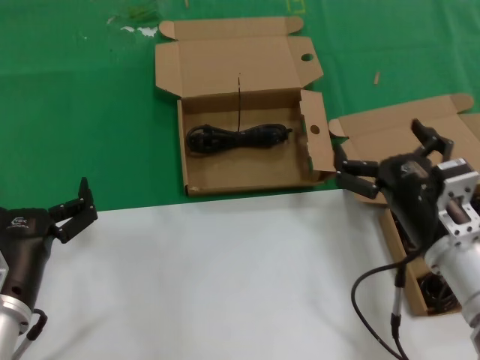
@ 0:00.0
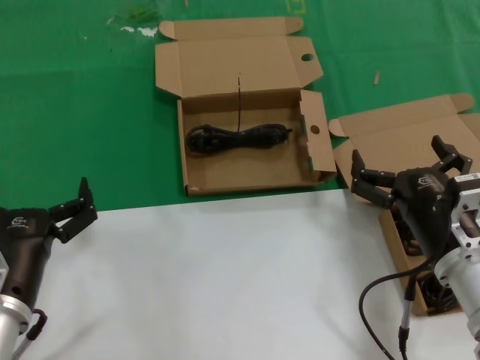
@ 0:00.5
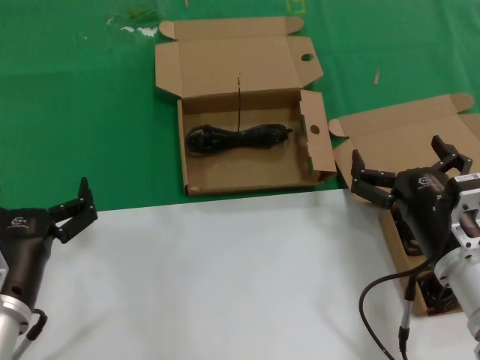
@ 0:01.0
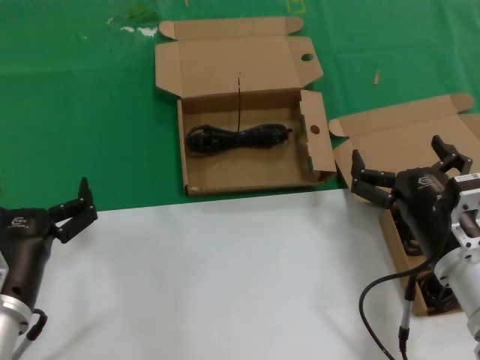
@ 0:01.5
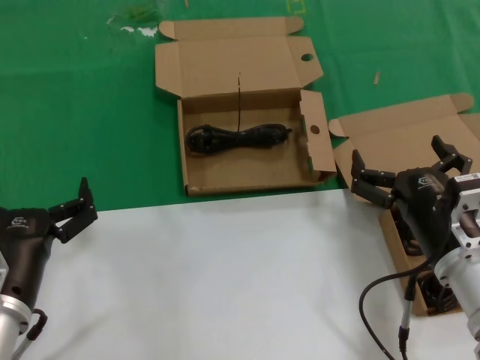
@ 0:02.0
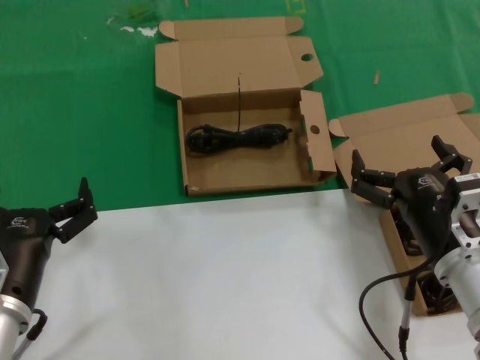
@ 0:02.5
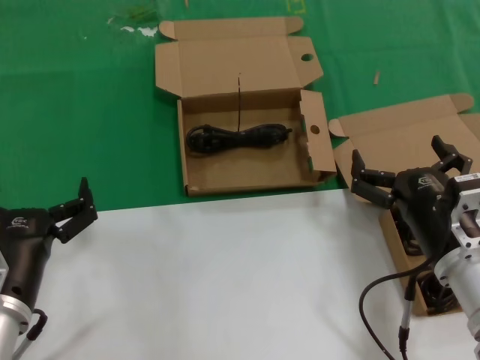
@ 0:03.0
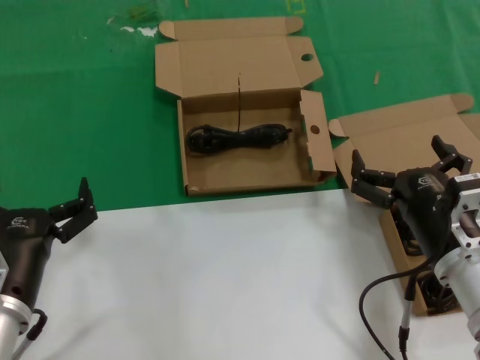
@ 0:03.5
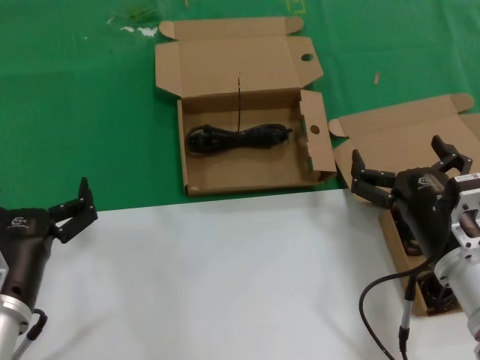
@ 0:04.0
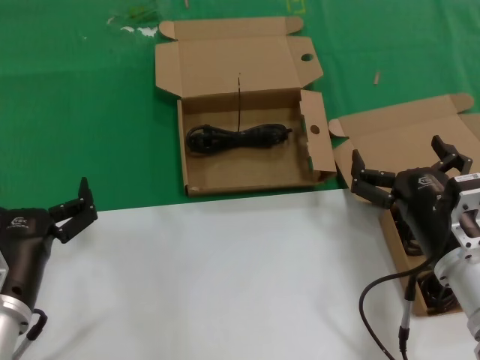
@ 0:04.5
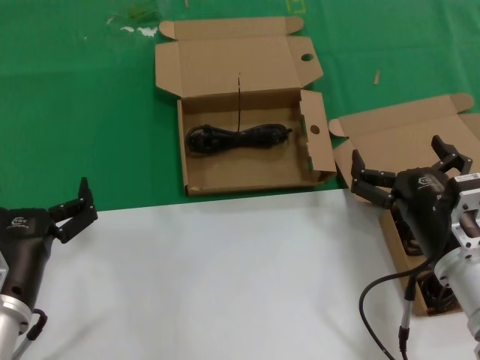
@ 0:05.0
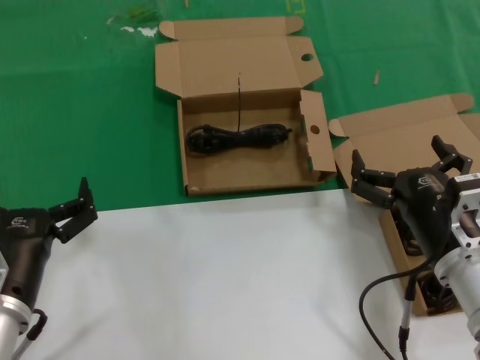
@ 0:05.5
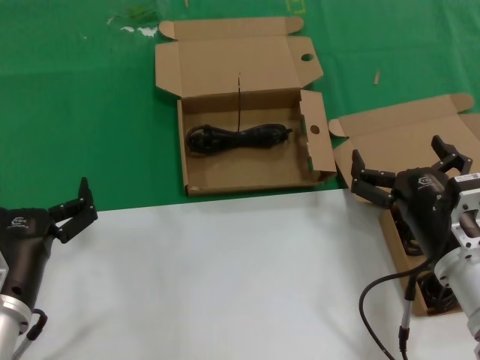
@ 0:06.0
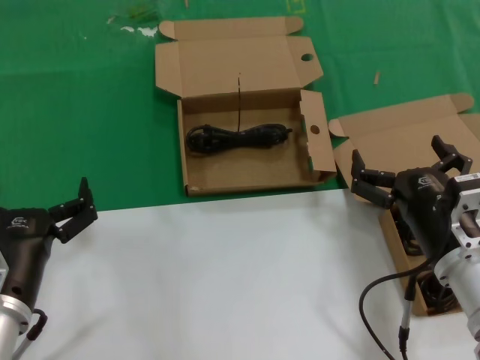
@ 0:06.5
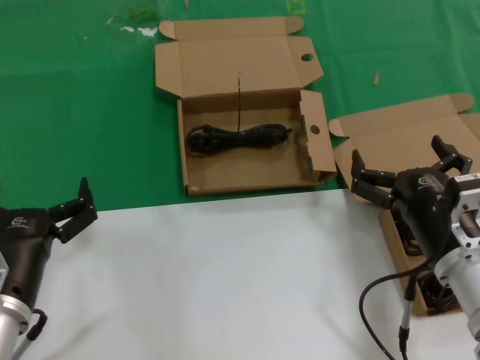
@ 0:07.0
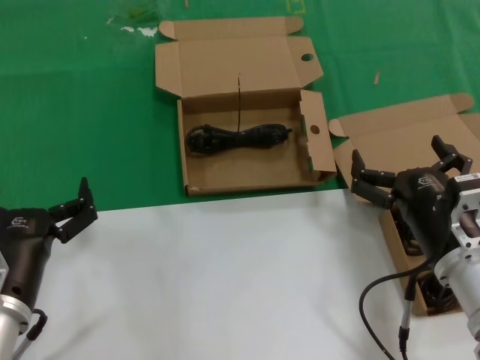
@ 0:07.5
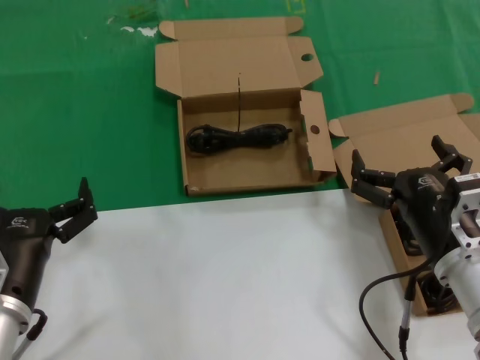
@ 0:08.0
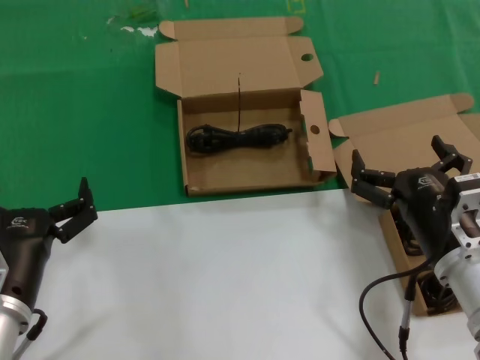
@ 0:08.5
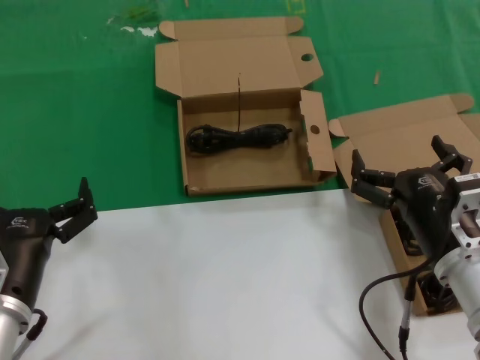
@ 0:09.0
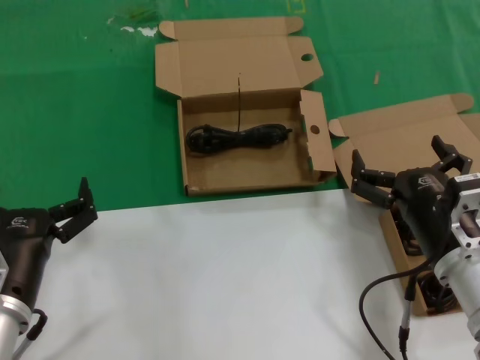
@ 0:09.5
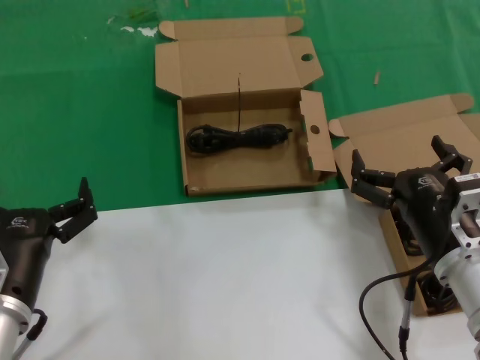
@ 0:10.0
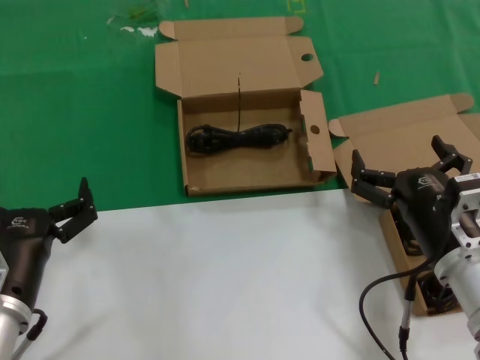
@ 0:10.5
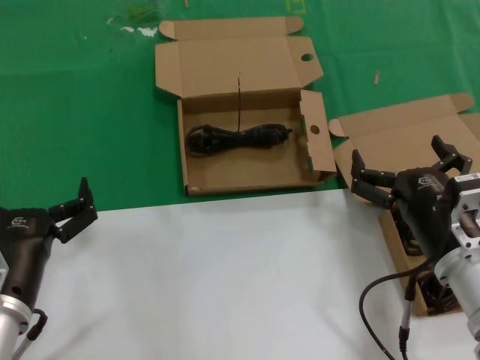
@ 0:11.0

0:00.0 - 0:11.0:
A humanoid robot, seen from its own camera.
Task of the whole recording: take the parts from the box containing them and put them into an empty box.
0:00.0 - 0:02.0: The hands stay close to where they were, moving slightly.
0:02.0 - 0:11.0: Neither hand changes place.

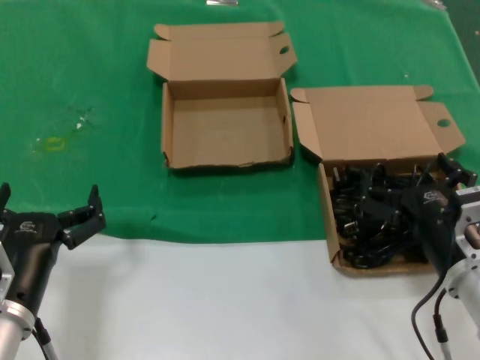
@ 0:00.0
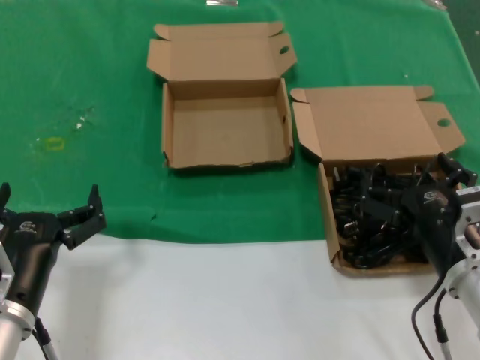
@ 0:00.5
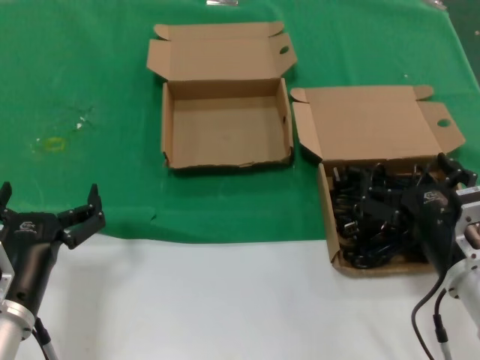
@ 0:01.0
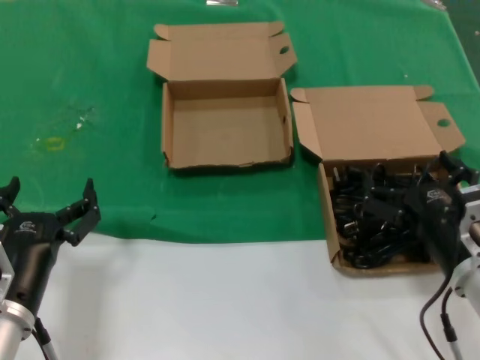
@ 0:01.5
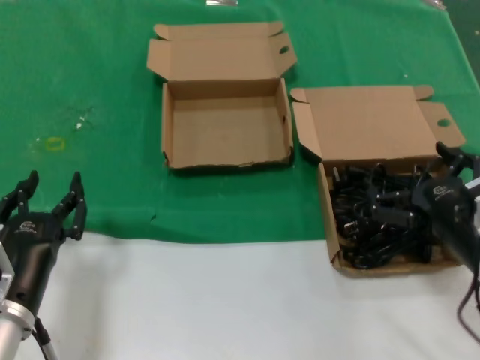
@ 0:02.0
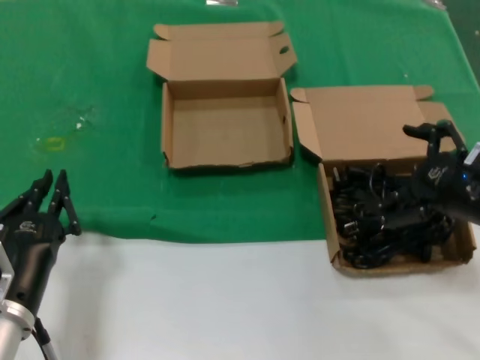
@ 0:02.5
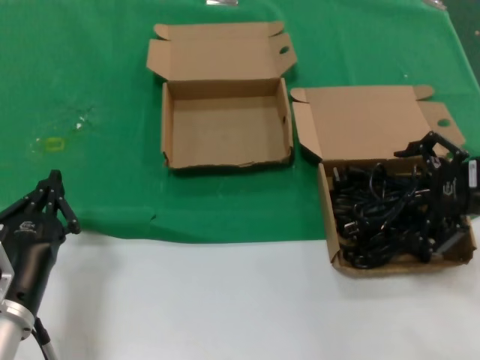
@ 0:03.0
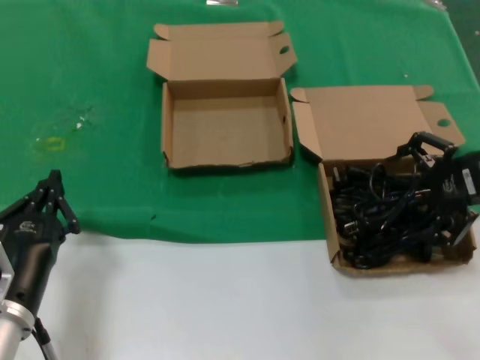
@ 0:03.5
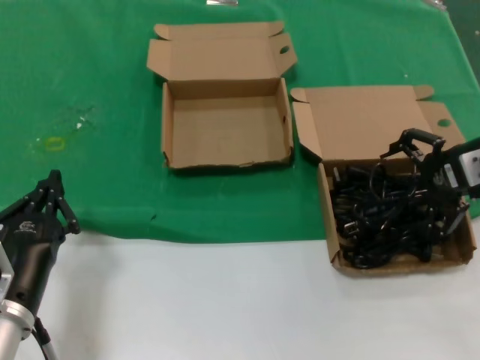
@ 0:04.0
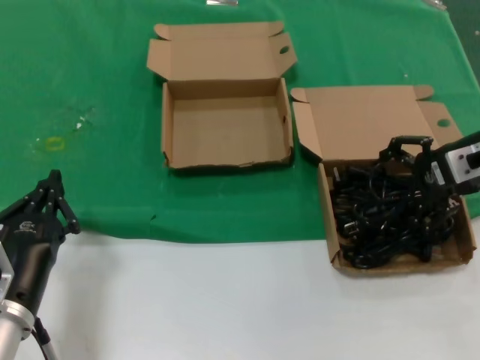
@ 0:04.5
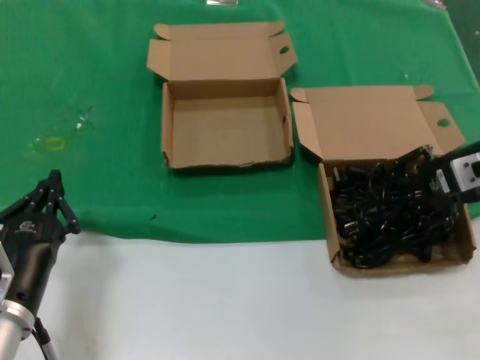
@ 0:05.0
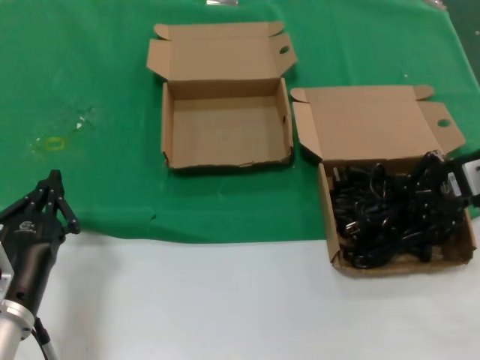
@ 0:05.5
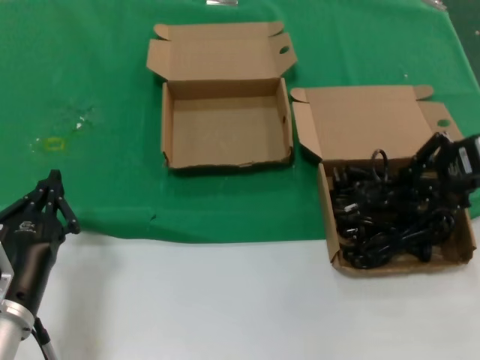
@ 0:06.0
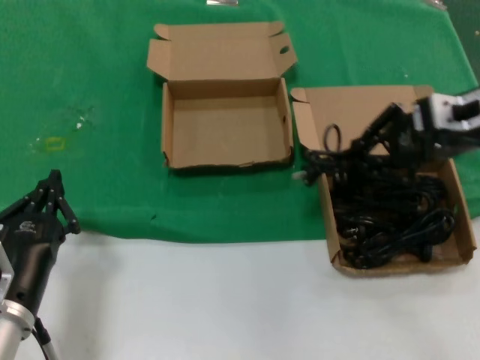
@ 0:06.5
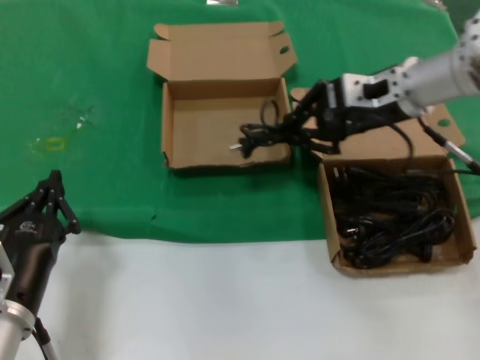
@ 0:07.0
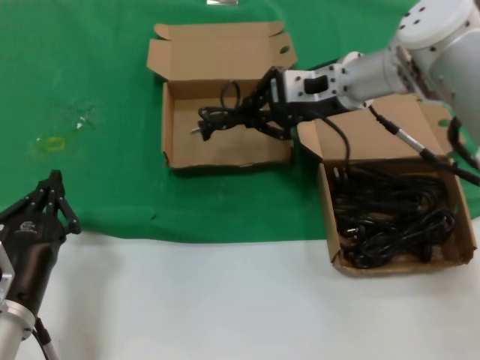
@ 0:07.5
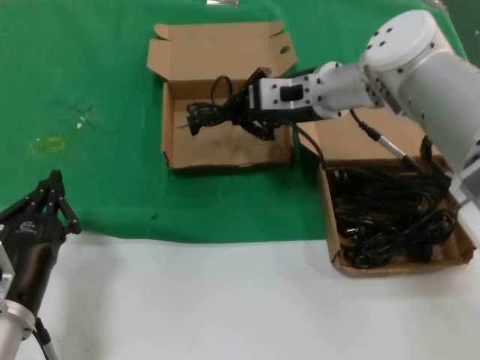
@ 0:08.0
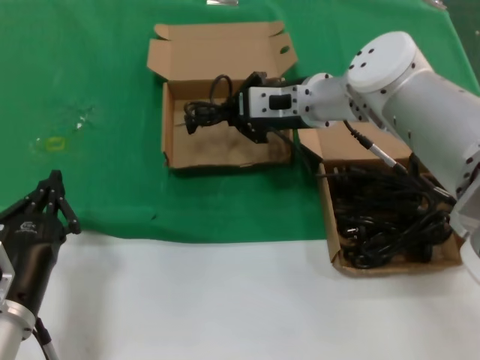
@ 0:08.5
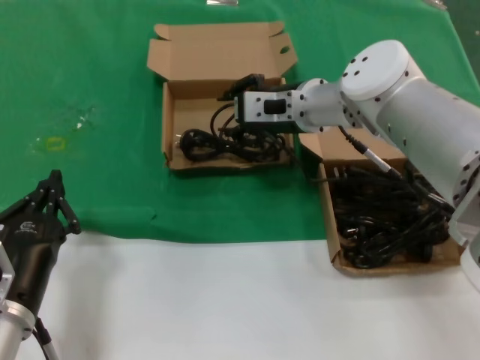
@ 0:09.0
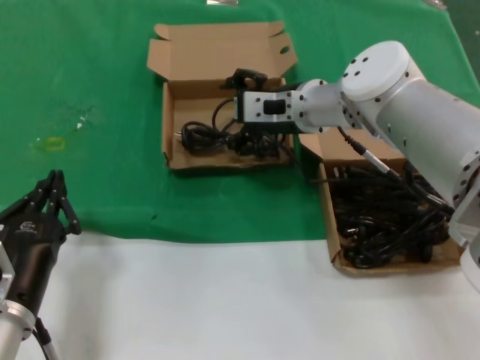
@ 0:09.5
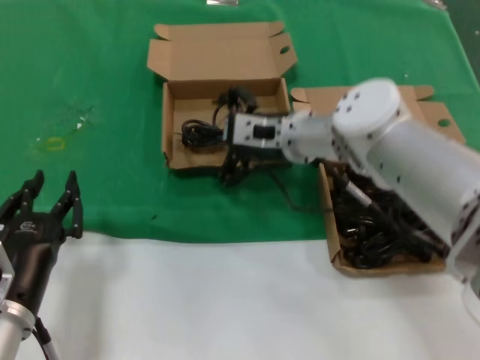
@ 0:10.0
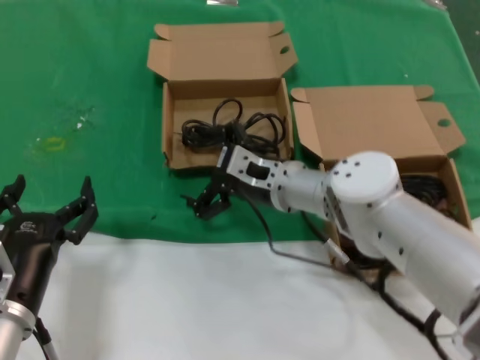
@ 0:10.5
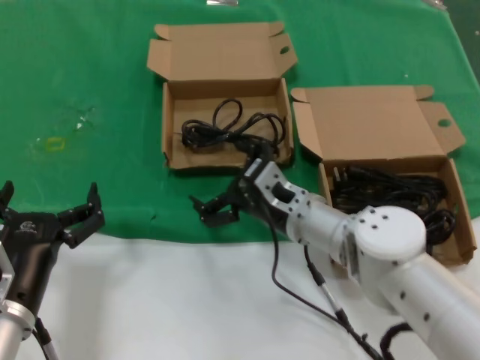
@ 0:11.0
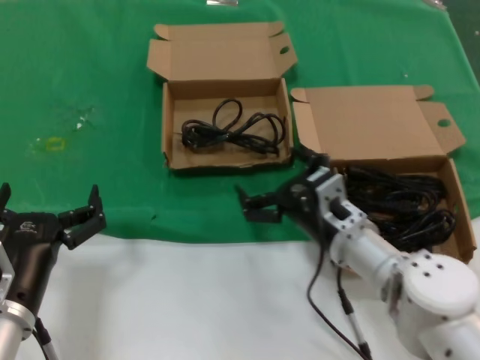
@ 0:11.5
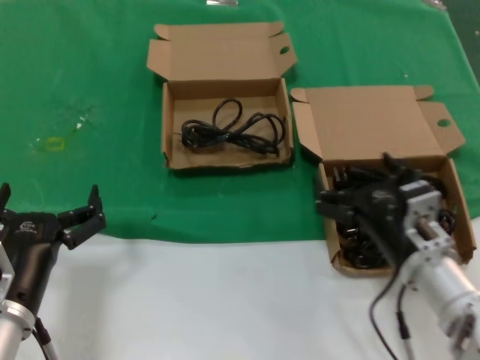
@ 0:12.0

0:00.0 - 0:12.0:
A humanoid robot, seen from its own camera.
Task of the whole recording: take the parts from the box containing them and put them into an empty box.
Step, 0:00.0 - 0:05.0: Grasp the data cable.
Step, 0:05.5 - 0:09.0: Place the data cable in the another box.
0:00.0 - 0:02.0: The hands move only a little.
0:02.0 - 0:04.0: The right hand travels forward, upward and to the right by roughly 20 cm.
0:04.0 - 0:06.0: The hands move only a little.
0:06.0 - 0:08.0: The right hand goes roughly 25 cm to the left and forward.
0:08.0 - 0:10.0: The right hand moves downward, some 5 cm.
0:10.0 - 0:12.0: The right hand travels backward, downward and to the right by some 25 cm.

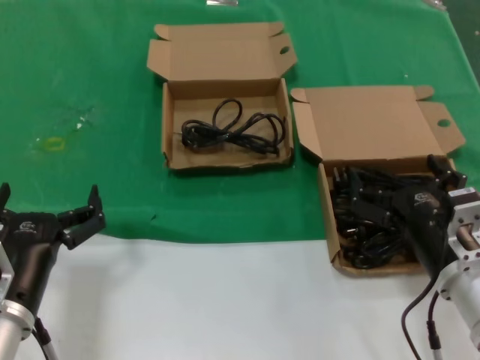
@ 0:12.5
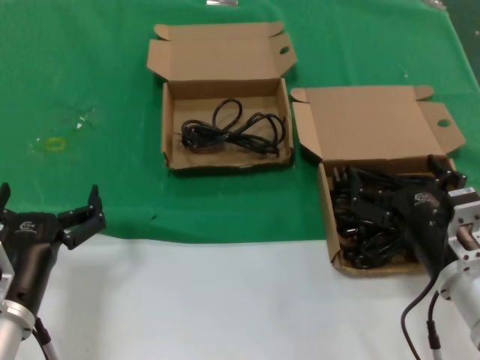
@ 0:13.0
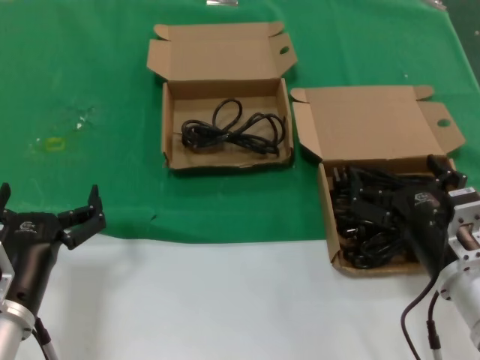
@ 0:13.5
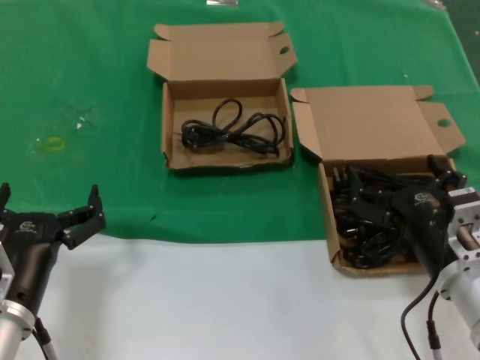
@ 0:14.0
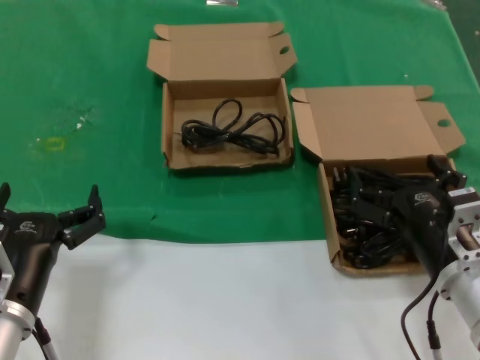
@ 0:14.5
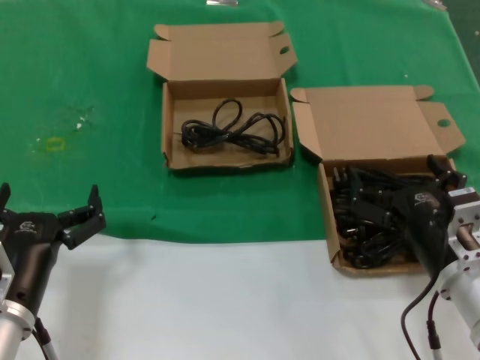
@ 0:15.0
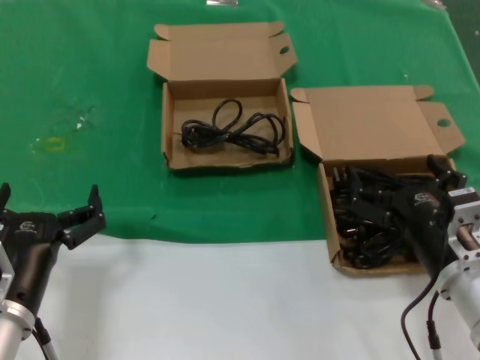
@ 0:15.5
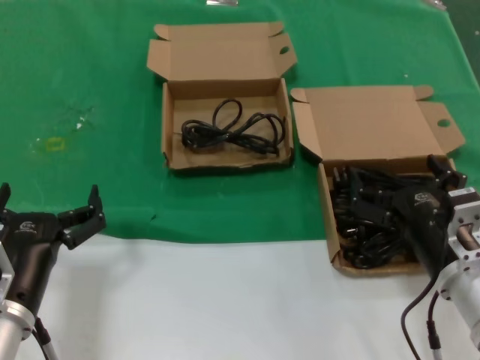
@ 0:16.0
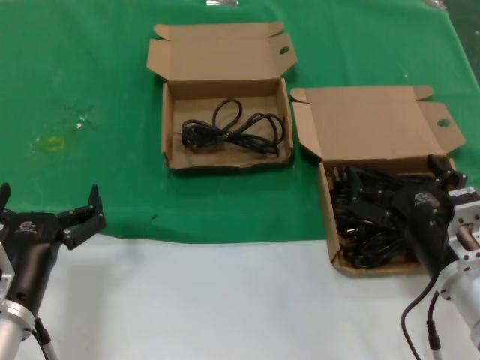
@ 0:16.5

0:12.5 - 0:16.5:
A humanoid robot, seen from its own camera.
Task of the whole recording: take the parts from the box containing them and put them into an empty box.
0:12.5 - 0:16.5: The two hands keep their place.
